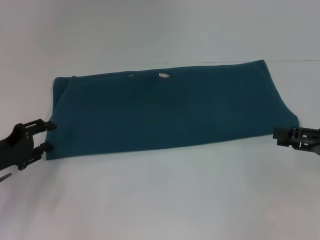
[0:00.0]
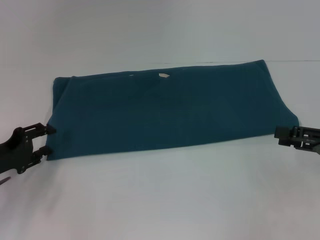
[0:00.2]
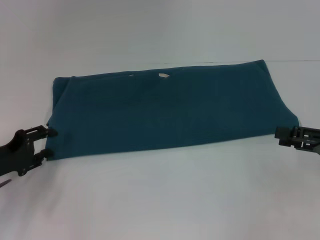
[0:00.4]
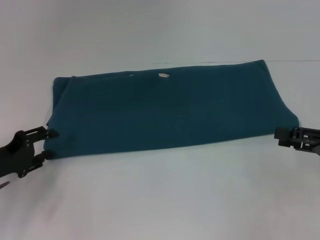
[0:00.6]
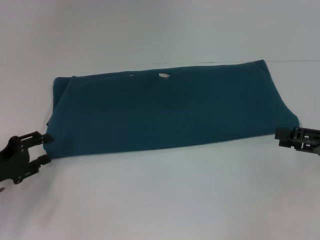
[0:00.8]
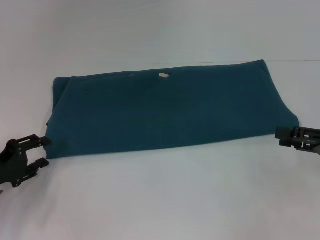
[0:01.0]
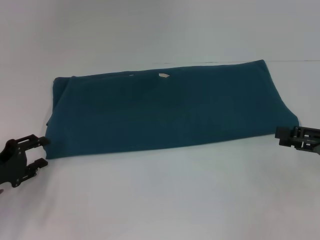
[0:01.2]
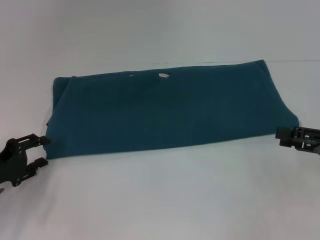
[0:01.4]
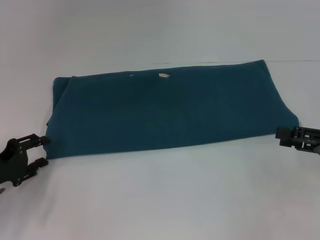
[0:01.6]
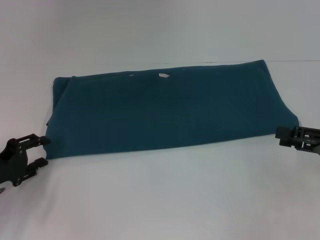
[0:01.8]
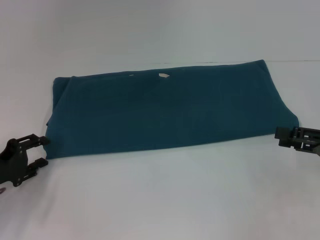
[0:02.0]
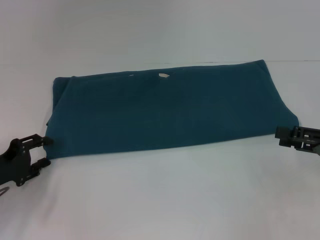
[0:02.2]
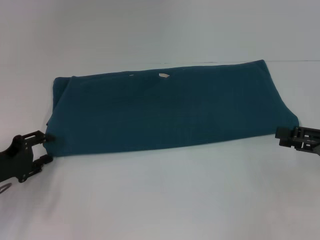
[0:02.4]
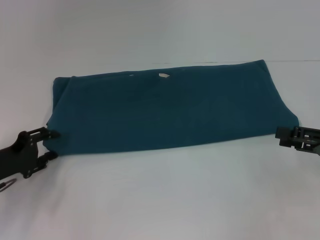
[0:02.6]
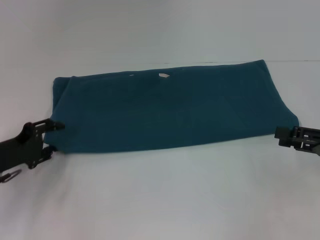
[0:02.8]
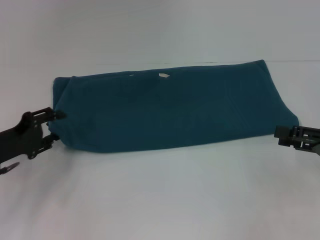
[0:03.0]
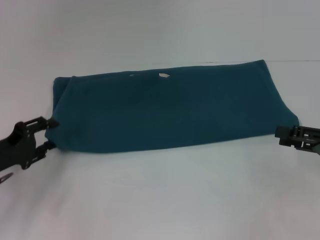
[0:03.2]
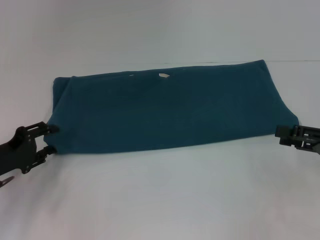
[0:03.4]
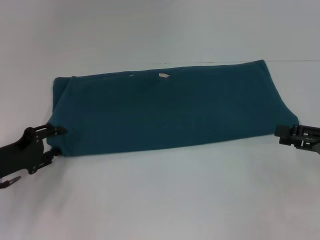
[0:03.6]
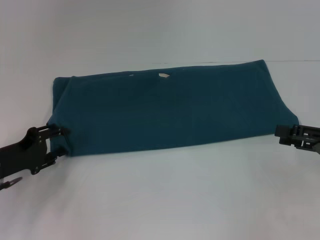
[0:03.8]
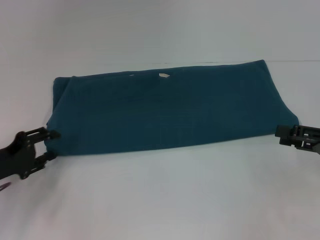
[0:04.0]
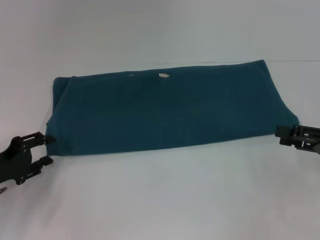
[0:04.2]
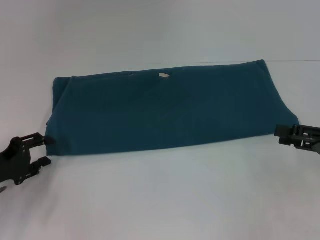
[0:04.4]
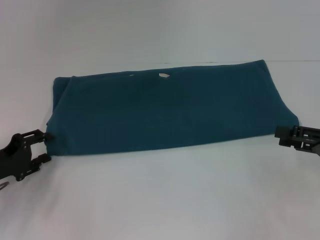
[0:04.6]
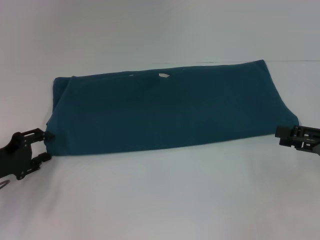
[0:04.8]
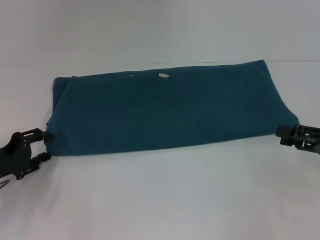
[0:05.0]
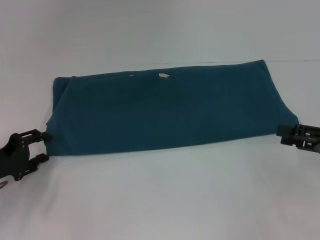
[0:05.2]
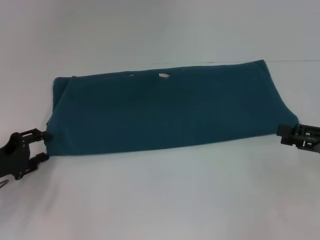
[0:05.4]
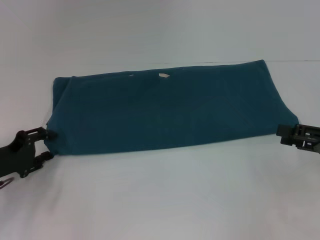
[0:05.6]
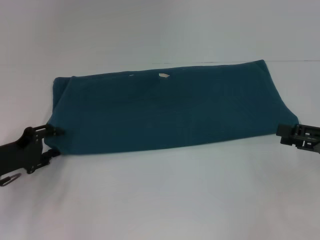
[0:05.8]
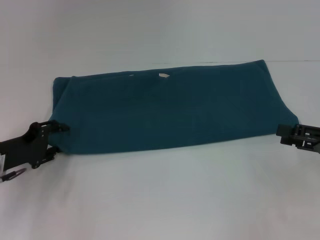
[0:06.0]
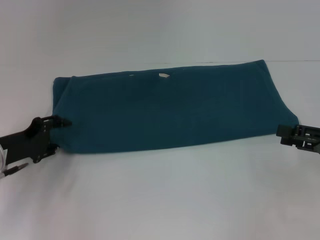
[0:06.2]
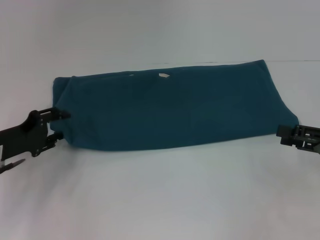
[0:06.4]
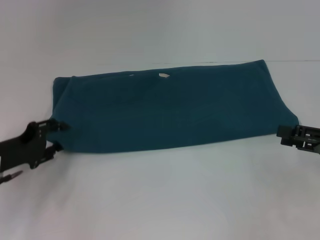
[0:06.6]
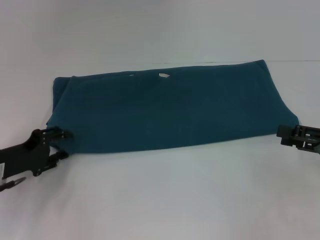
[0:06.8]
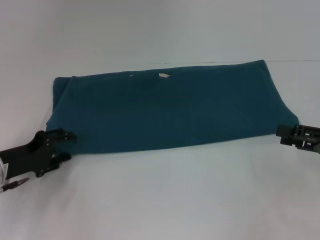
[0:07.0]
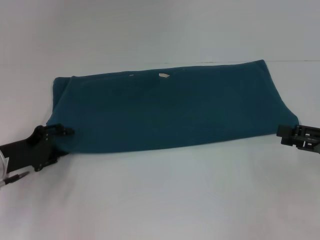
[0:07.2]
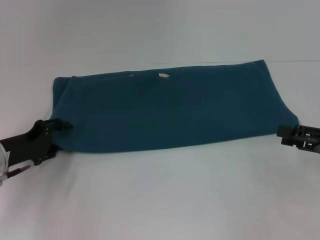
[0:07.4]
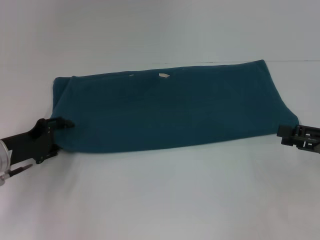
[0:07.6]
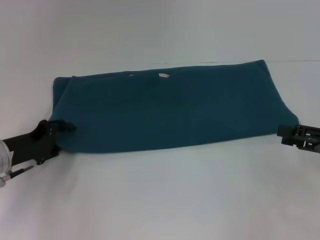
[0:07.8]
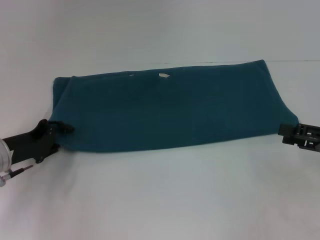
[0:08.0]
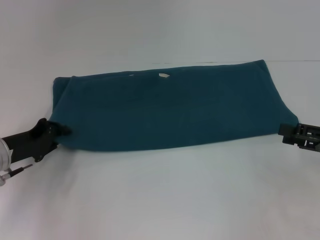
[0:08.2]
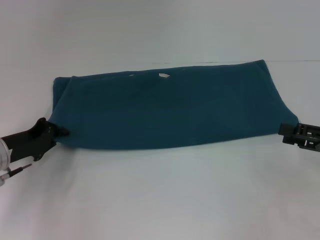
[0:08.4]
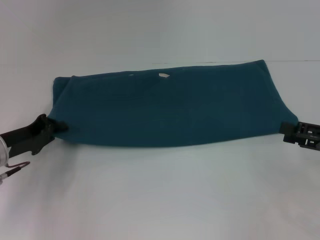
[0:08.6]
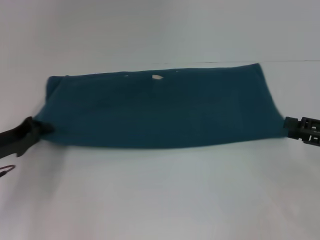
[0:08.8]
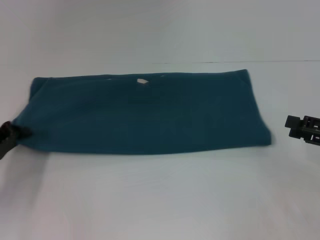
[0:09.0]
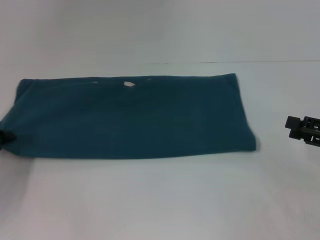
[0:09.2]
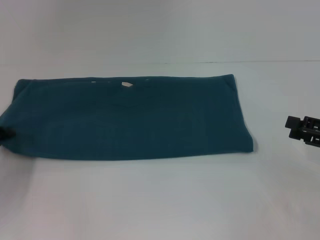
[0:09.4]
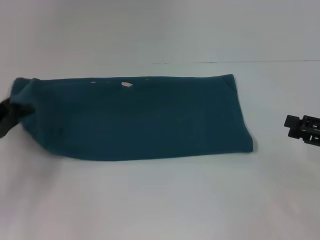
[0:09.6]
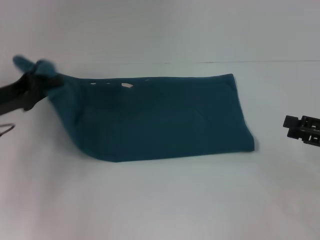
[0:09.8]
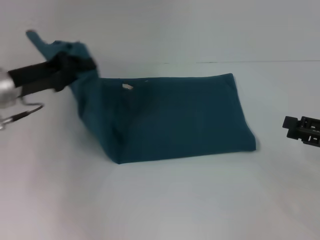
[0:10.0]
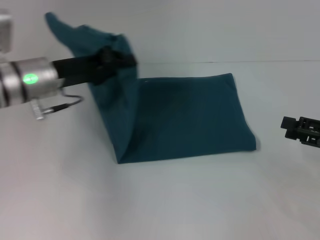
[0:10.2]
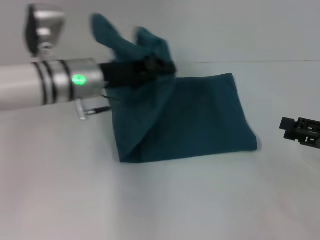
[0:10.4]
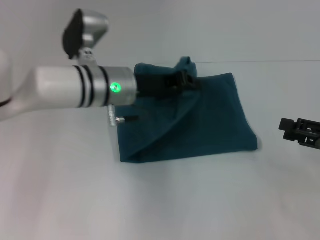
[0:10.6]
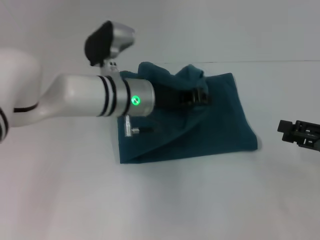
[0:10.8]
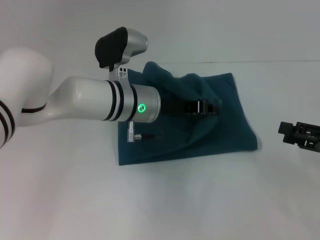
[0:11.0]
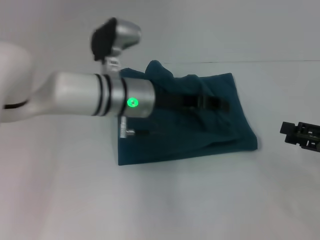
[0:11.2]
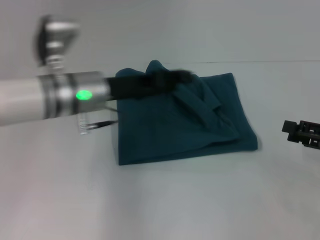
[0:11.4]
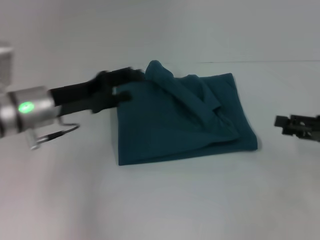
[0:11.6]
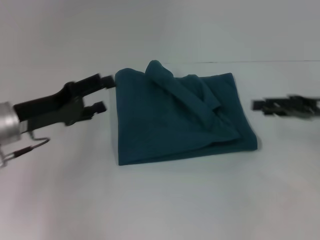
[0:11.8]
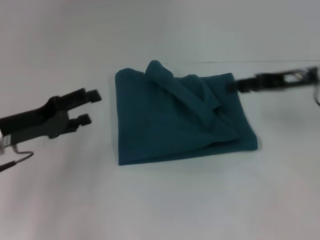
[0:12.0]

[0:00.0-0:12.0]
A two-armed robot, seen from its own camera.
Step, 0:00.0 to 0:11.4: Fold the clothes to the left.
0:00.0 to 0:07.6: The grippers make only small movements.
0:07.6 to 0:09.0: The left gripper ends up roughly 5 cm from where it was, and closes.
0:09.0 to 0:10.4: The left gripper is displaced to the right, upward and forward by about 25 cm.
0:10.4 to 0:12.0: The left gripper moves to the left and backward, approximately 15 cm, and opens its fingers, while the right gripper travels forward, to the left and upward by about 15 cm.

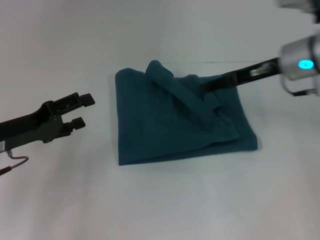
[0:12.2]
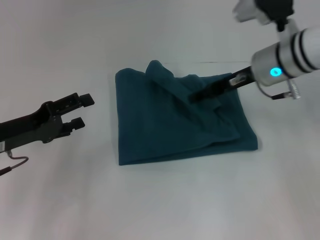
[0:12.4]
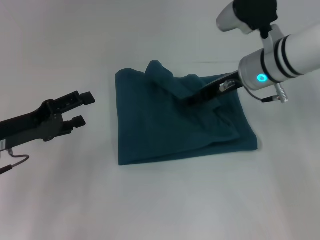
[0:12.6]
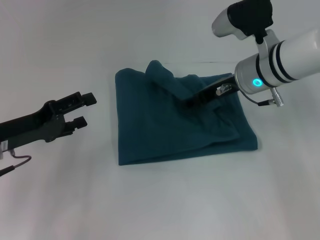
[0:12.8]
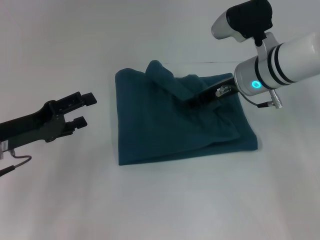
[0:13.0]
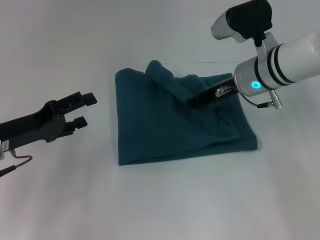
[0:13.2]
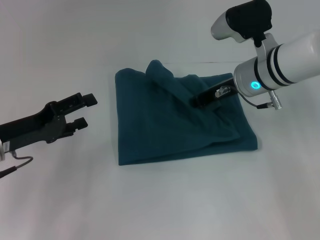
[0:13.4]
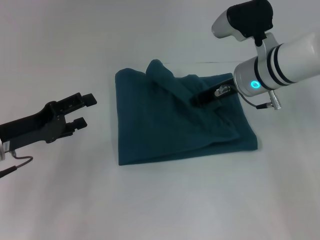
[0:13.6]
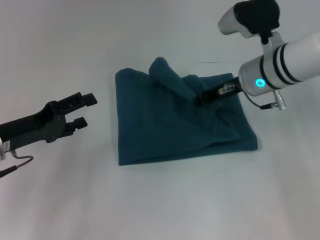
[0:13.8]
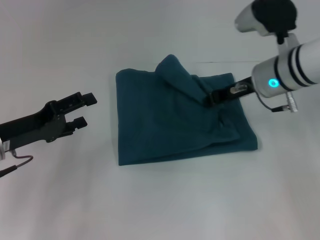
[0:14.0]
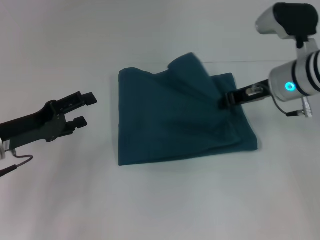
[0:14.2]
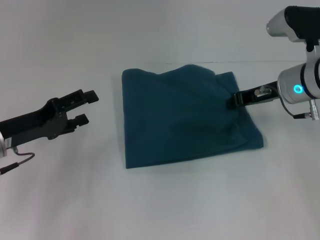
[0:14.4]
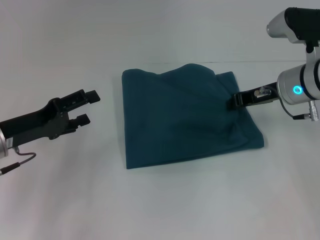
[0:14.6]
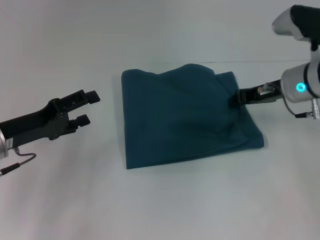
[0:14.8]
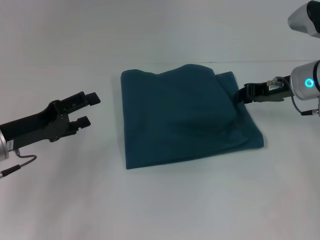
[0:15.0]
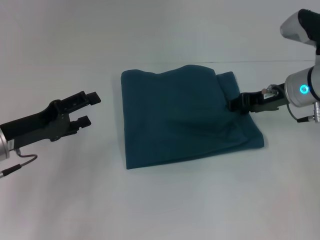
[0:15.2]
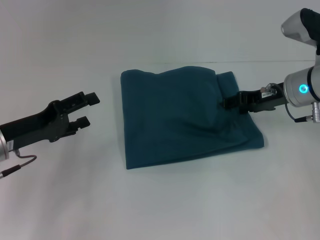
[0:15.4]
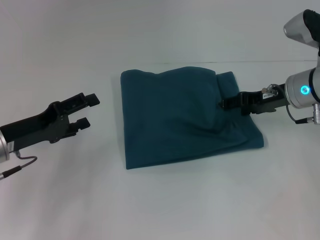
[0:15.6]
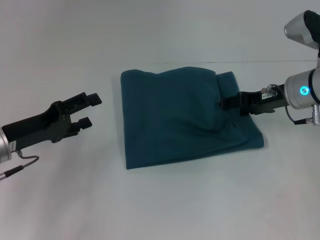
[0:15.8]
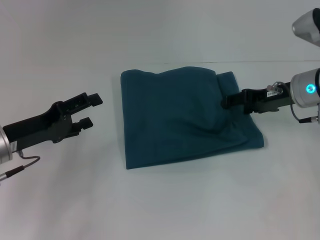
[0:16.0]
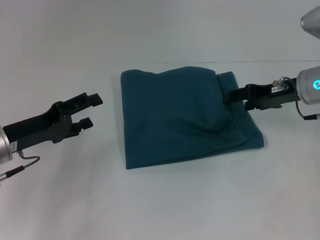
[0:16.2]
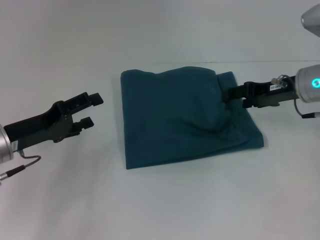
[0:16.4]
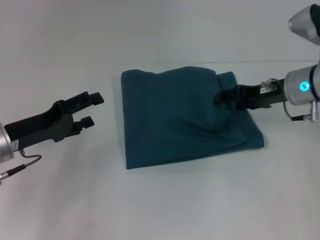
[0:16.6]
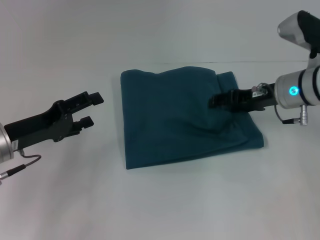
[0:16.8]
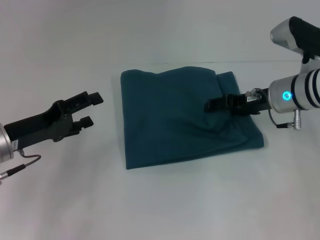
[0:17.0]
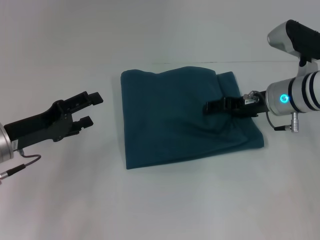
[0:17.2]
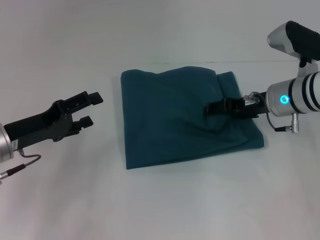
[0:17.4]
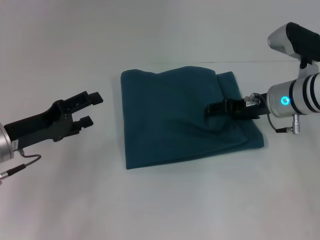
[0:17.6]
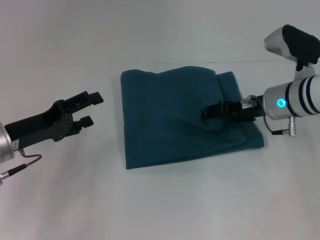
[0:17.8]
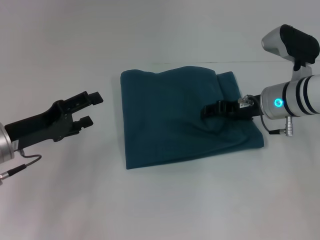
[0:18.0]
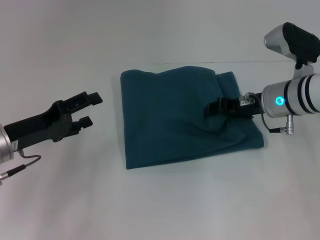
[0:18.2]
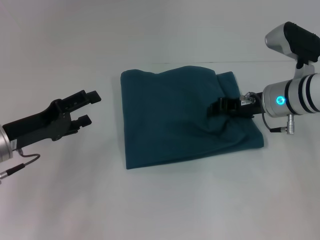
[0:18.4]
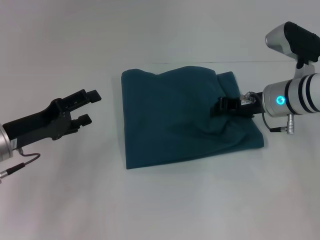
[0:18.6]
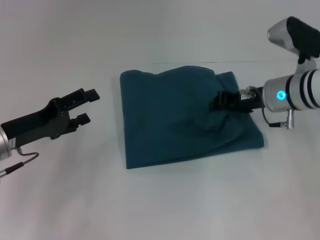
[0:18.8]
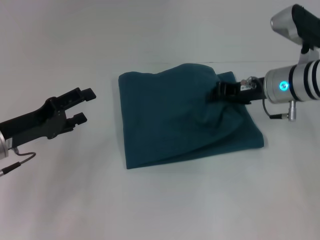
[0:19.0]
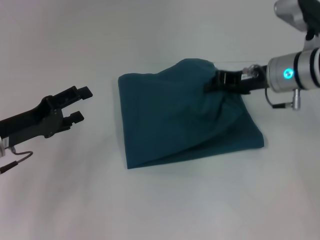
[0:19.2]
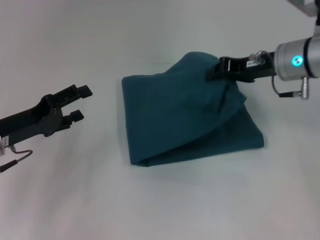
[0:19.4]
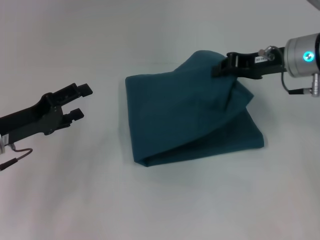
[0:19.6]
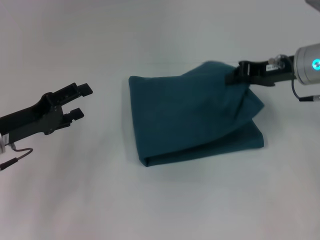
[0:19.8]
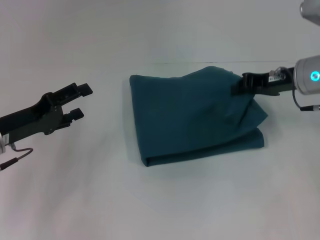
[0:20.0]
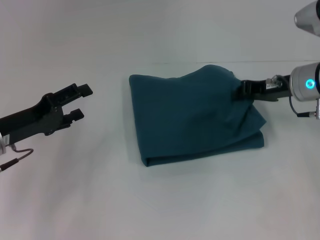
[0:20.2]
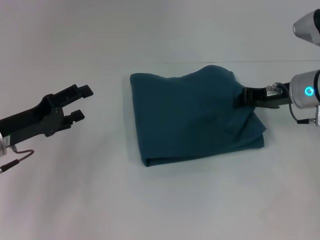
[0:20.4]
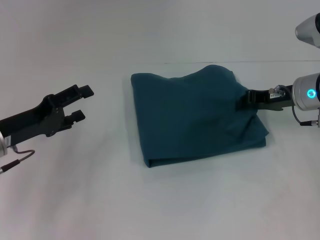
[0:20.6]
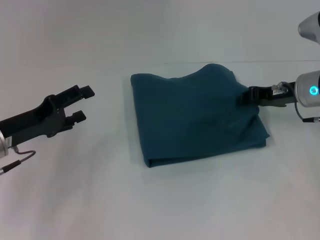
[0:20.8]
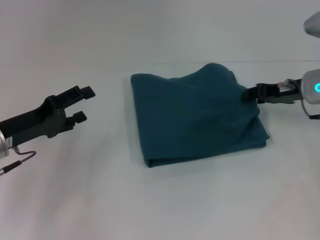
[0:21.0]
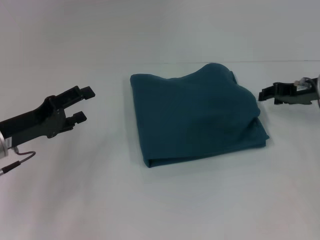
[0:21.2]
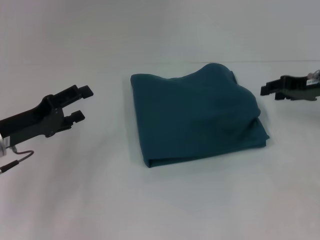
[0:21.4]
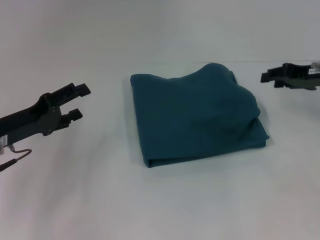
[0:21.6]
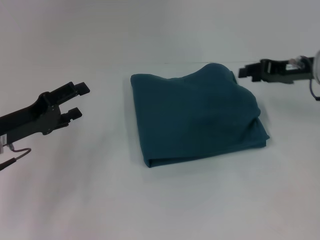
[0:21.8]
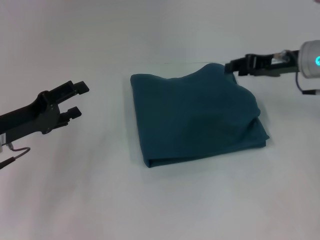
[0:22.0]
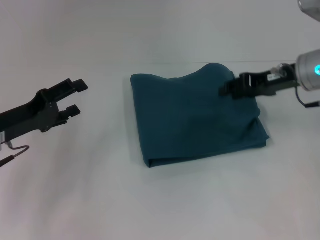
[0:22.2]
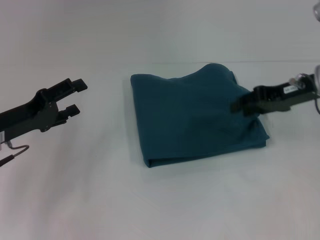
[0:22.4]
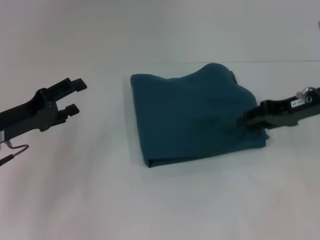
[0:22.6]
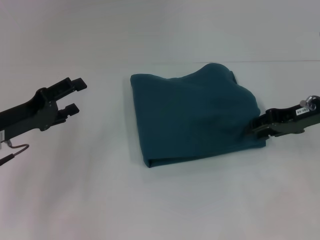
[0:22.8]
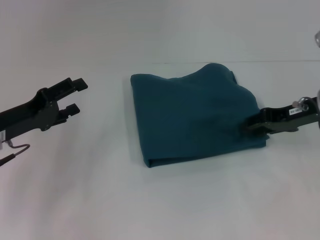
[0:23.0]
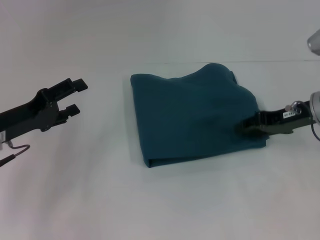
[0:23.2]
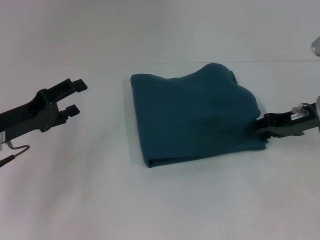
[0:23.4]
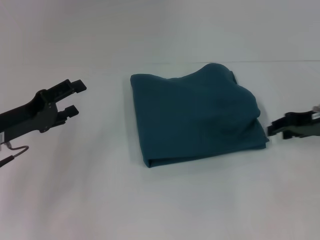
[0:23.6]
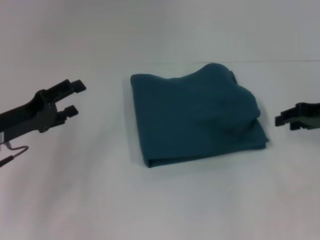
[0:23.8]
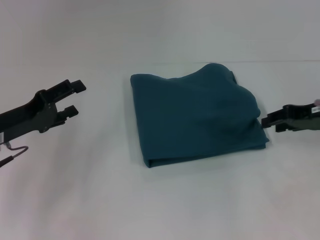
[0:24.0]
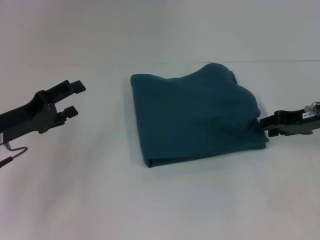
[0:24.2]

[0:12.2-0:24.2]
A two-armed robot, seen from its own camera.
0:12.2 to 0:13.8: The right gripper goes about 5 cm to the left, and closes.
0:13.8 to 0:15.2: The right gripper goes about 5 cm to the right.
0:15.2 to 0:16.6: The right gripper opens.
0:16.6 to 0:18.2: The grippers stay close to where they were, moving slightly.
0:18.2 to 0:19.8: The right gripper goes roughly 5 cm upward, and closes up.
0:19.8 to 0:21.2: The right gripper travels to the right by some 5 cm, and opens.
0:22.6 to 0:24.2: There are only small adjustments of the grippers.
